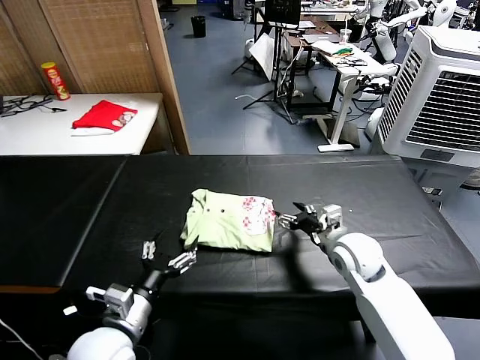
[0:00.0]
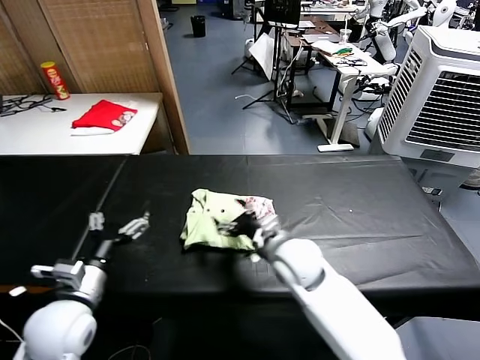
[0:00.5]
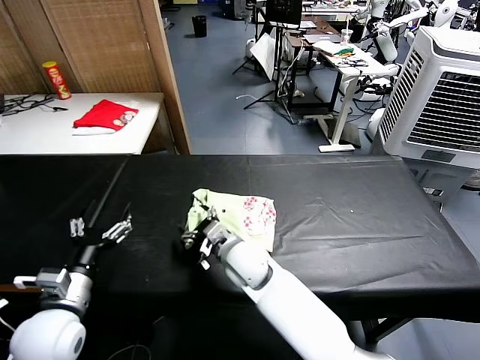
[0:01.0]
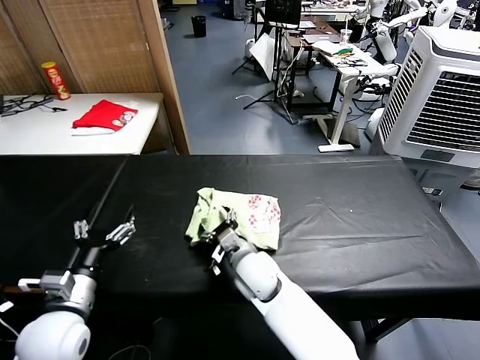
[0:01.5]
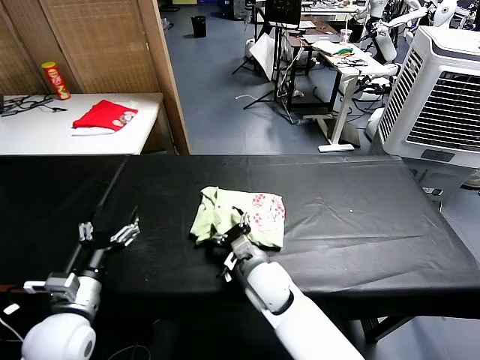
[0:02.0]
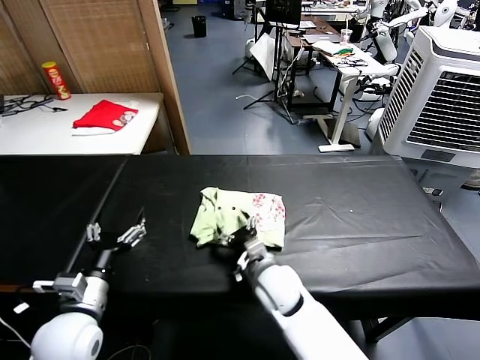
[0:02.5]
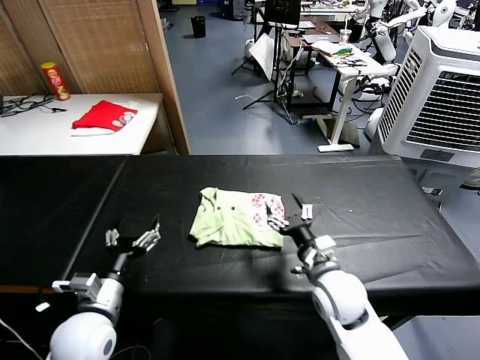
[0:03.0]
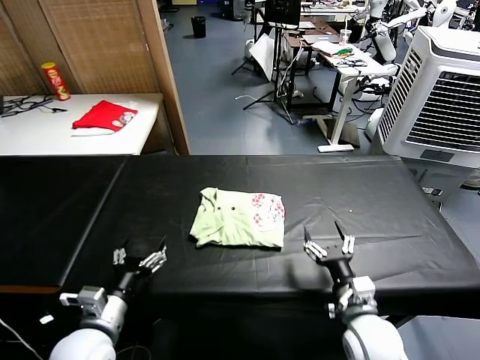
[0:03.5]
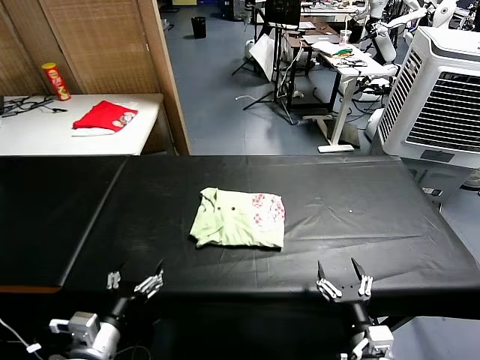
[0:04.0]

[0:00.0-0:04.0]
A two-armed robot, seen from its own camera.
Task of the whole recording: fold and organize the clothes.
Step, 0:00.0 to 0:02.5: Drag the clothes to the center of the table.
0:00.0 to 0:02.0: The right gripper goes about 20 cm to the left. Meanwhile the left gripper shifts some 5 cm to the left.
0:02.0 to 0:04.0: The right gripper goes about 25 cm to the right and backward. The left gripper travels backward by about 5 cm.
